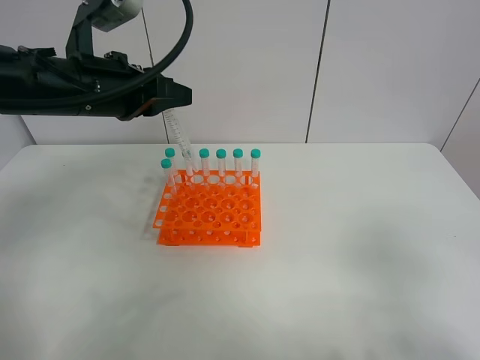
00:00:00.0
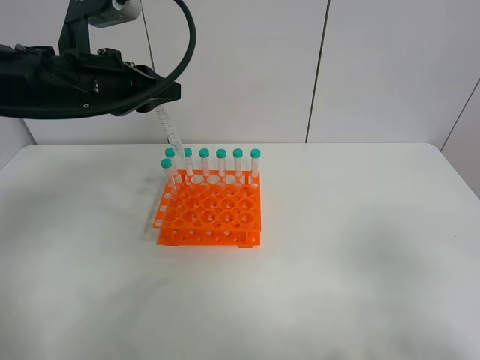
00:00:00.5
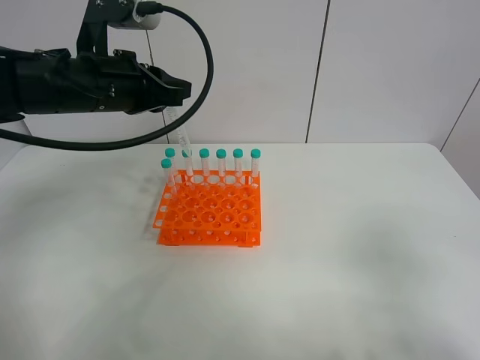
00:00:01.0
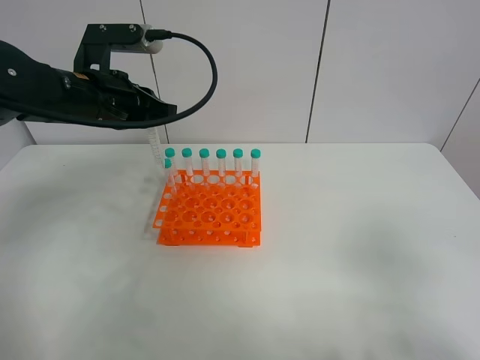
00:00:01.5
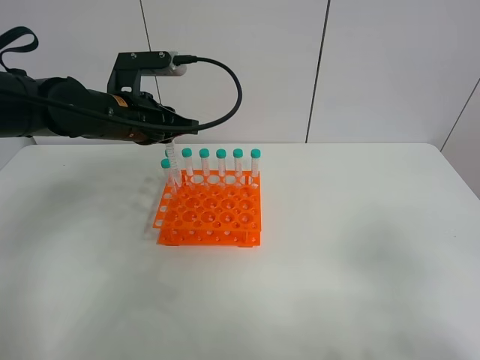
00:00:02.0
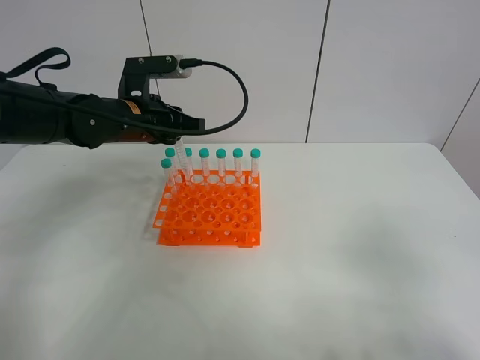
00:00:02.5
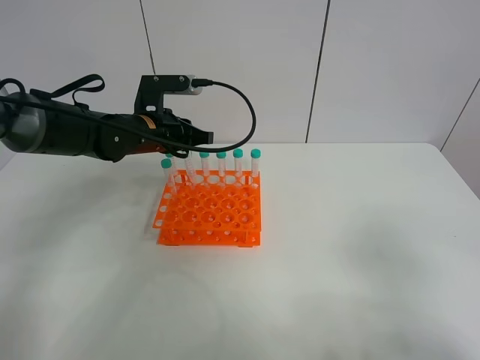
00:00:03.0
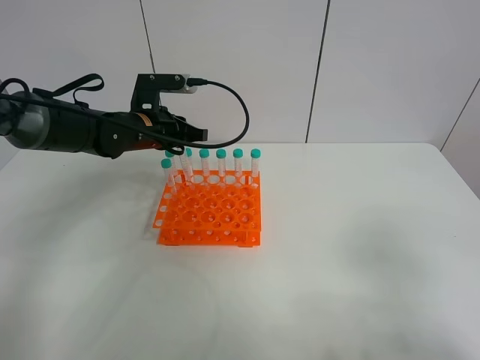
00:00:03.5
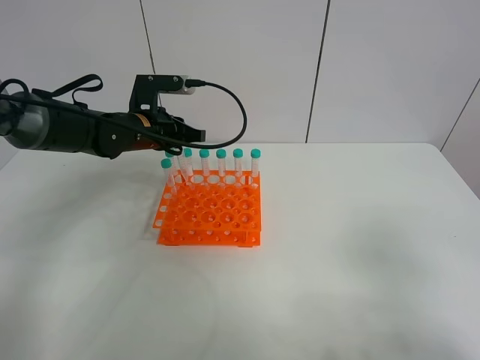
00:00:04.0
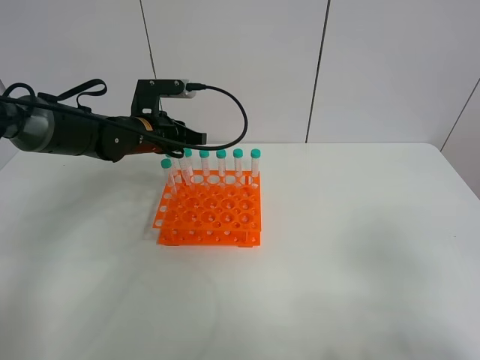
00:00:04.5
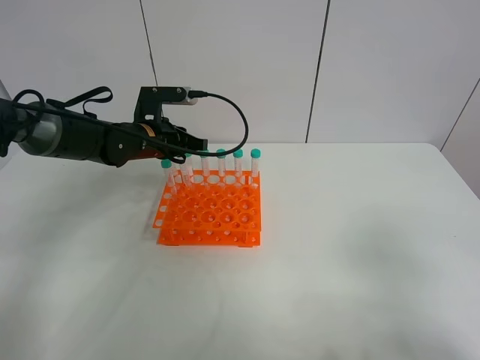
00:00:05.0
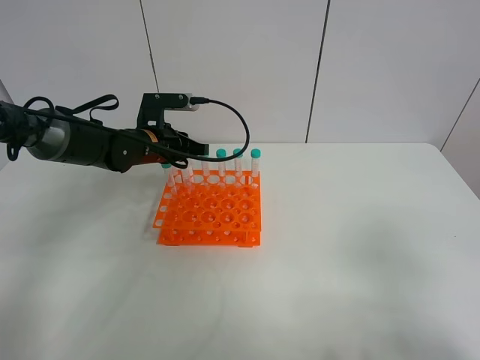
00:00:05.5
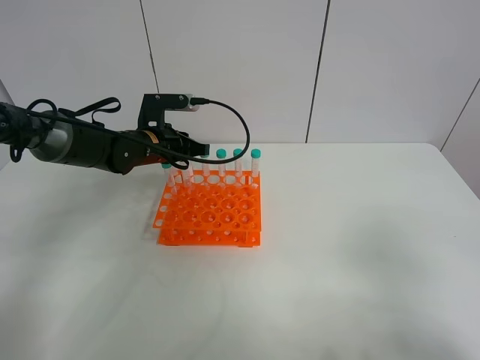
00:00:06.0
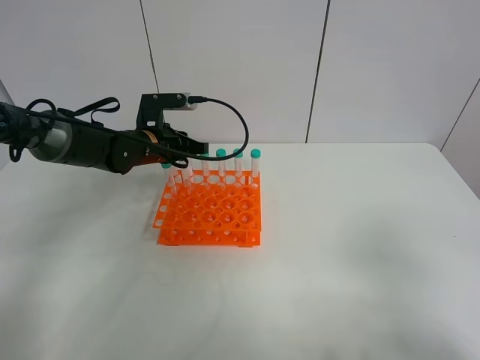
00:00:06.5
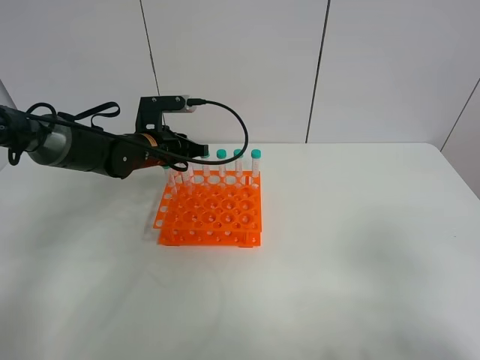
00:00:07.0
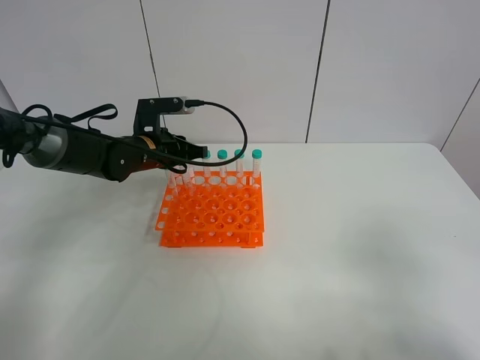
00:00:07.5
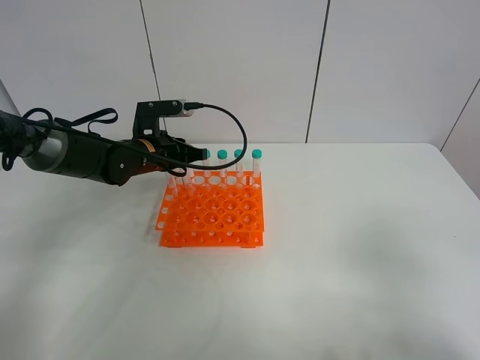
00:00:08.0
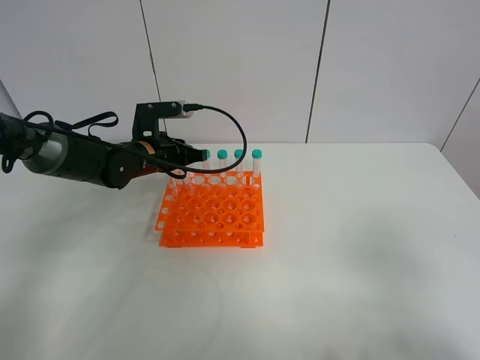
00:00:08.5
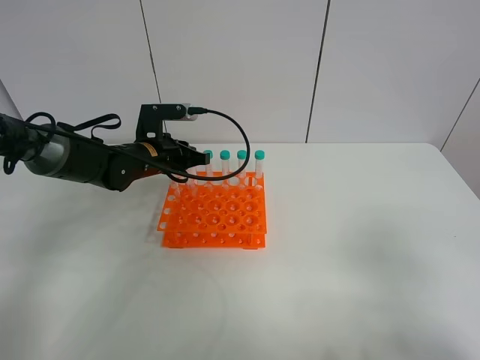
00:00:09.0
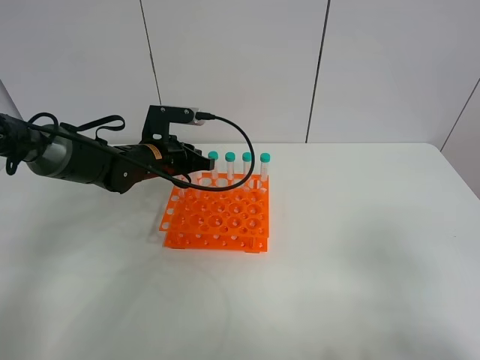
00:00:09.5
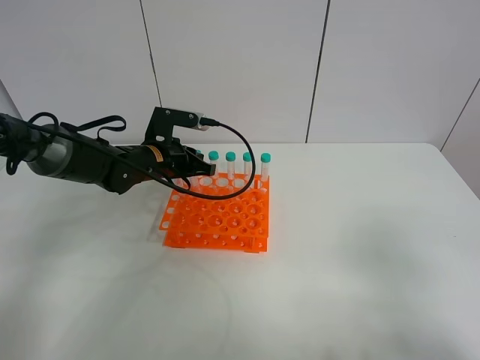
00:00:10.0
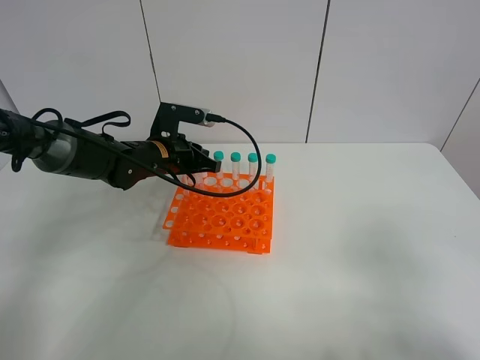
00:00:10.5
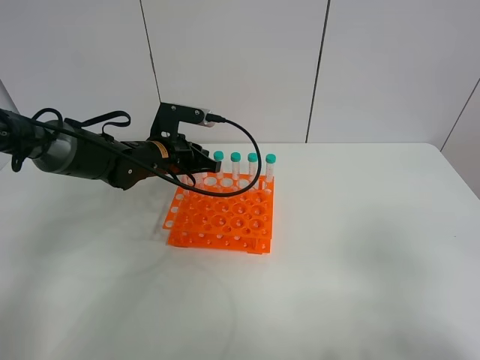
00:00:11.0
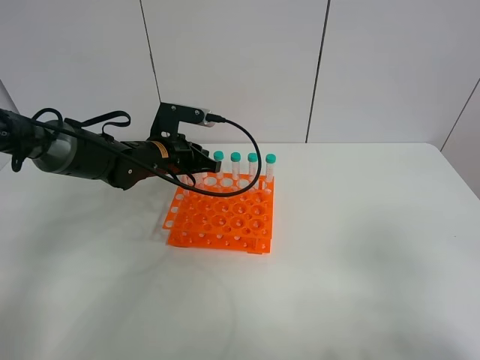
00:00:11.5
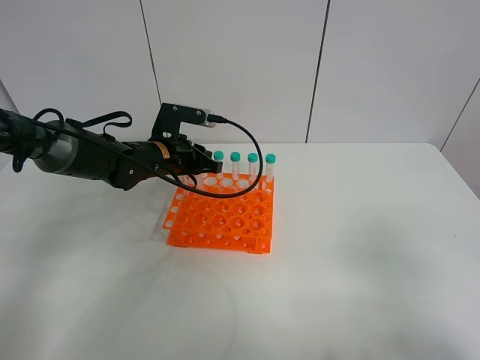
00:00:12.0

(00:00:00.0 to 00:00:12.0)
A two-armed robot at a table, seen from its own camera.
Task of the whole recording: Put the test tube on the table back onto the test tube rack.
00:00:00.0 - 00:00:02.0: The left gripper travels downward by about 5 cm.
00:00:02.0 - 00:00:04.0: The left gripper is displaced downward and forward by approximately 10 cm.
00:00:04.0 - 00:00:10.0: The grippers make only small movements.
00:00:10.0 - 00:00:12.0: Neither gripper changes place.

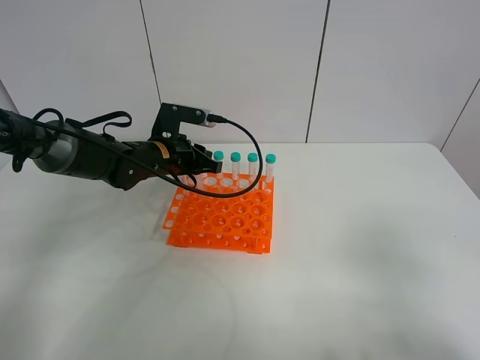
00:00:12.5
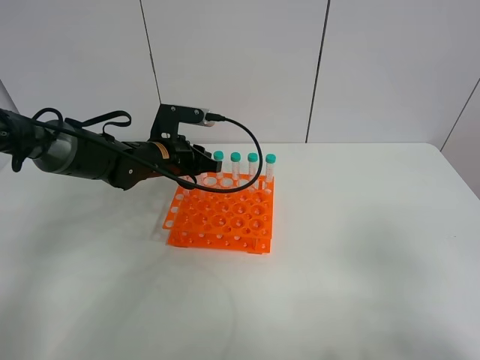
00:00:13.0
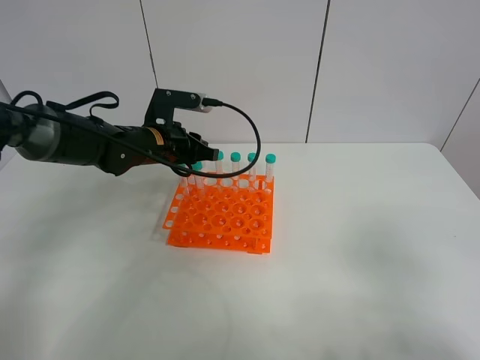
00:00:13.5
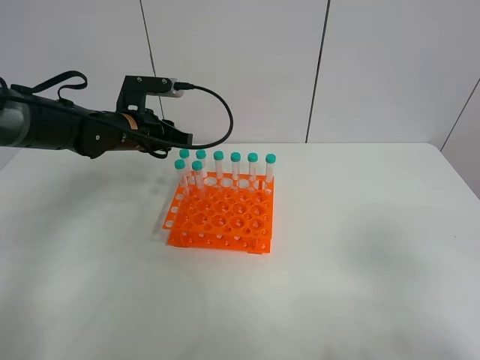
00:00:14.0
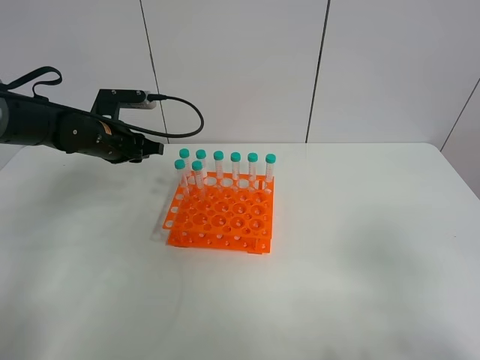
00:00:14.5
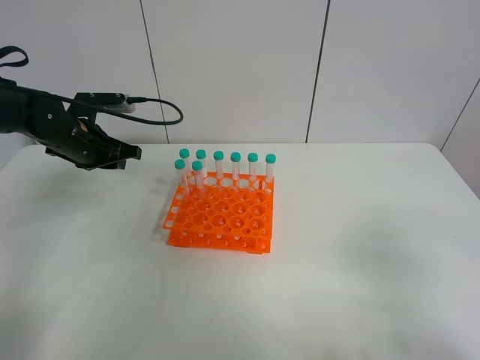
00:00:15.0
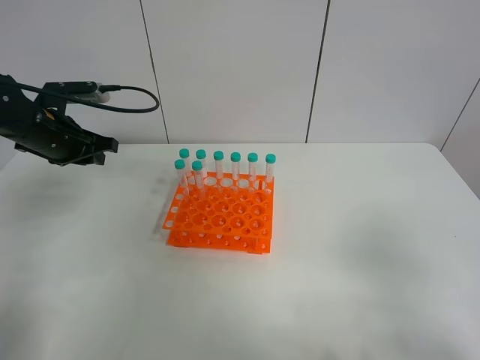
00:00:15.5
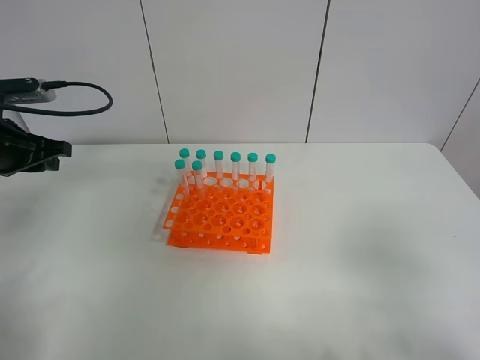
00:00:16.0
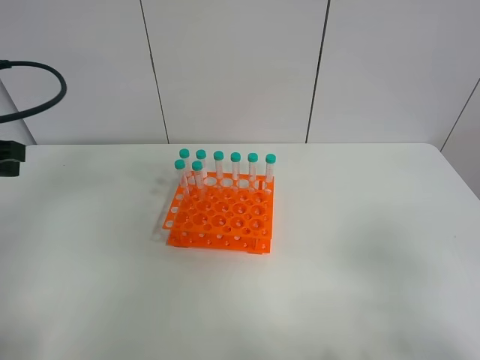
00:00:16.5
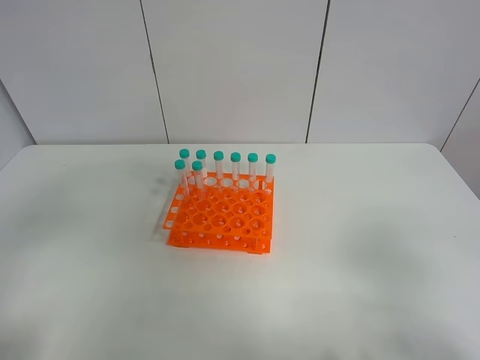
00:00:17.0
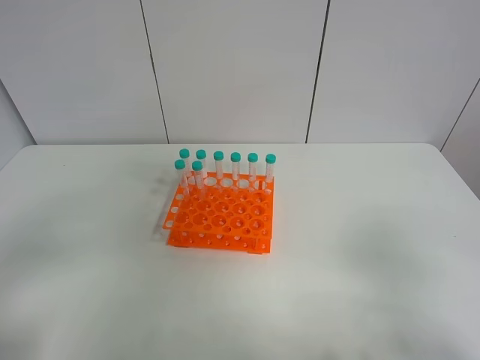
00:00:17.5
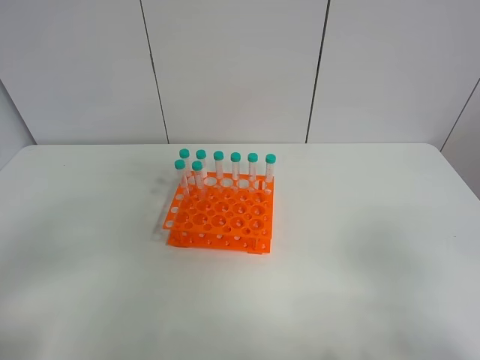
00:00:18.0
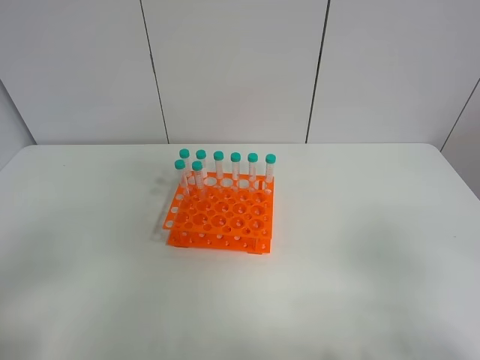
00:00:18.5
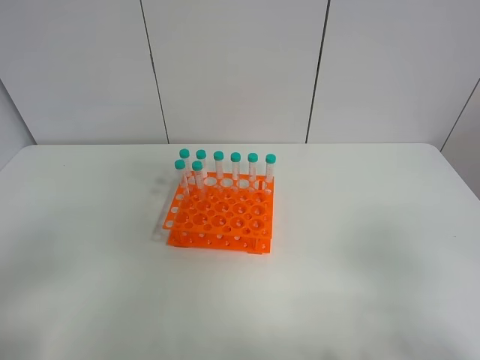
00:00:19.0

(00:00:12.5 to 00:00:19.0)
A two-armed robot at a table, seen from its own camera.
Task of the whole recording: Put the test tube on the table back onto the test tube rack.
00:00:12.5 - 00:00:14.5: The left gripper moves to the left, about 10 cm.
00:00:14.5 - 00:00:17.0: The left gripper travels backward and upward by some 35 cm.

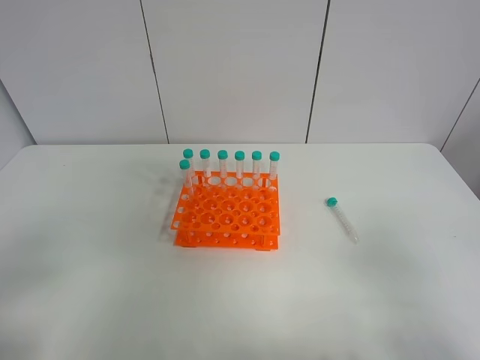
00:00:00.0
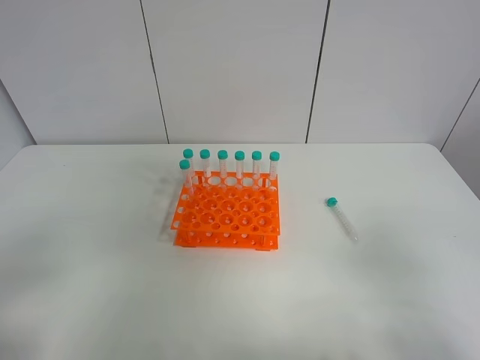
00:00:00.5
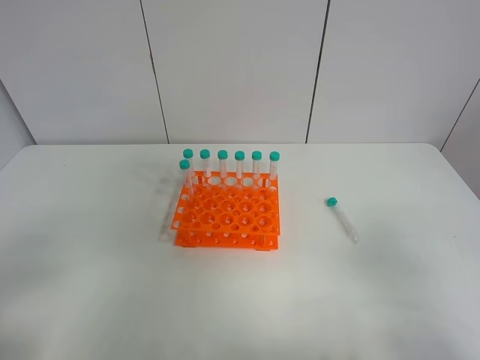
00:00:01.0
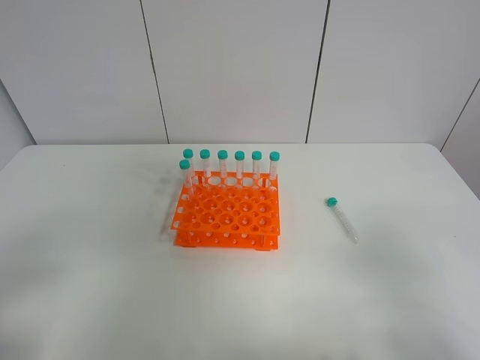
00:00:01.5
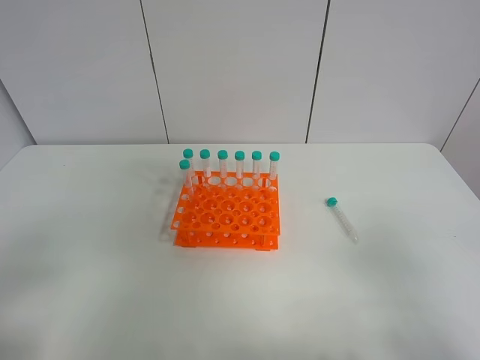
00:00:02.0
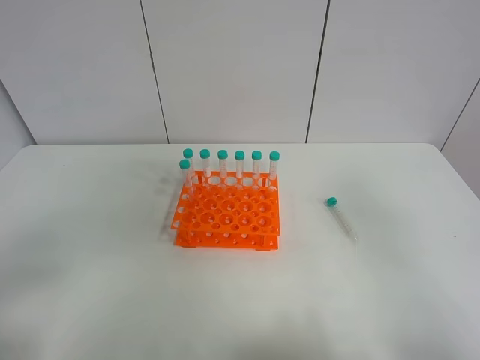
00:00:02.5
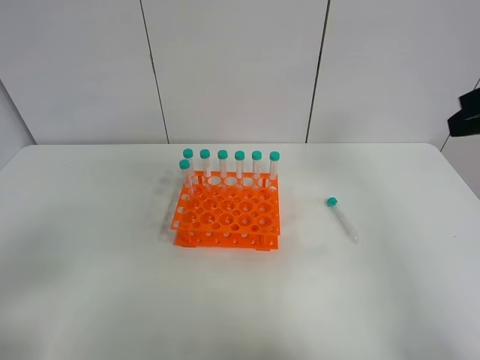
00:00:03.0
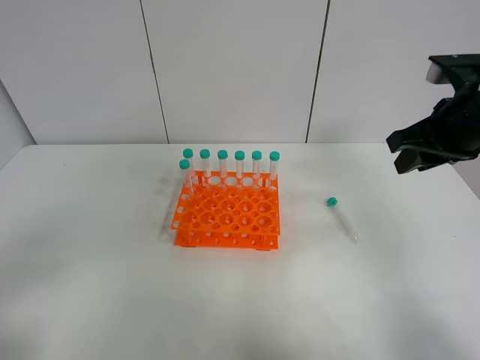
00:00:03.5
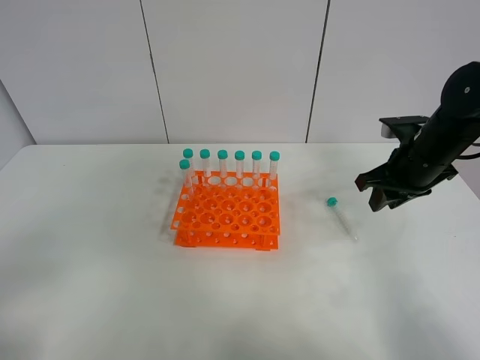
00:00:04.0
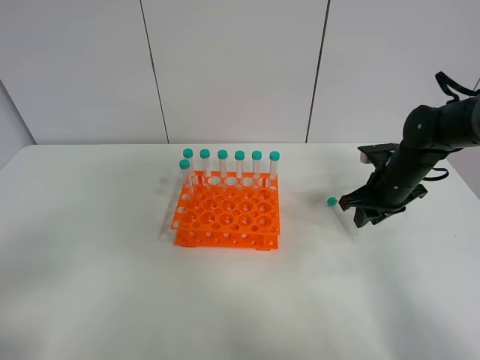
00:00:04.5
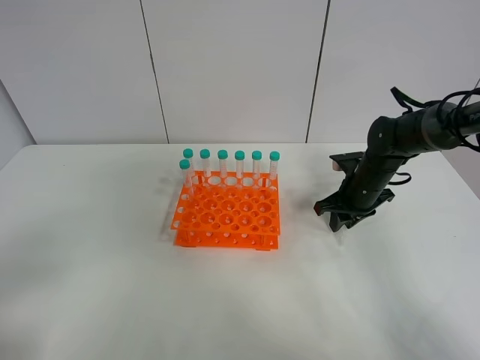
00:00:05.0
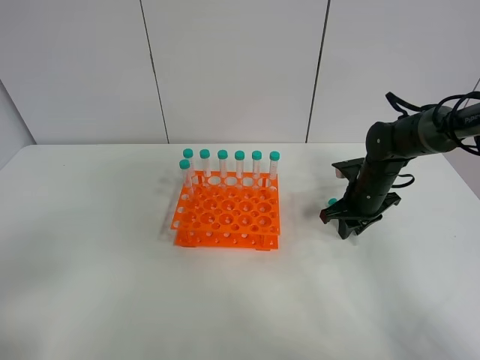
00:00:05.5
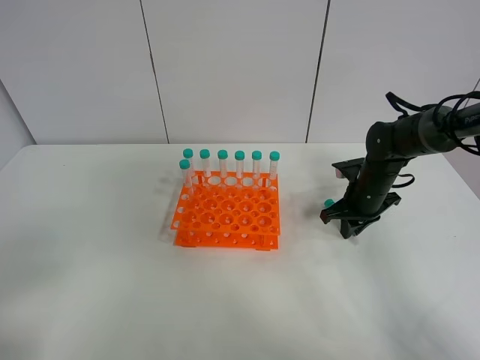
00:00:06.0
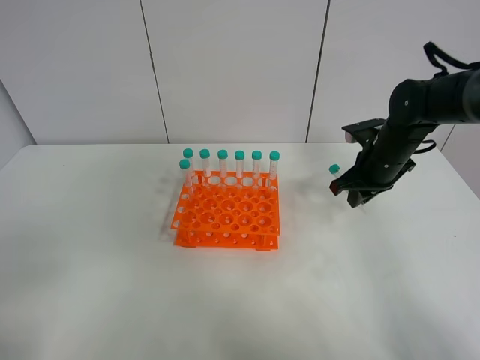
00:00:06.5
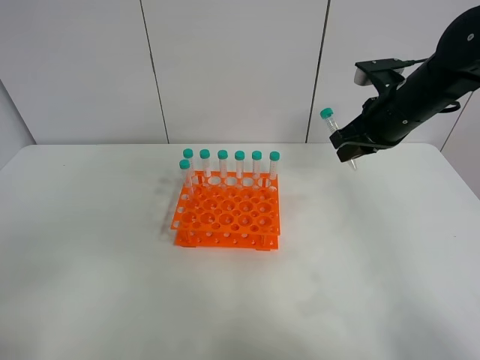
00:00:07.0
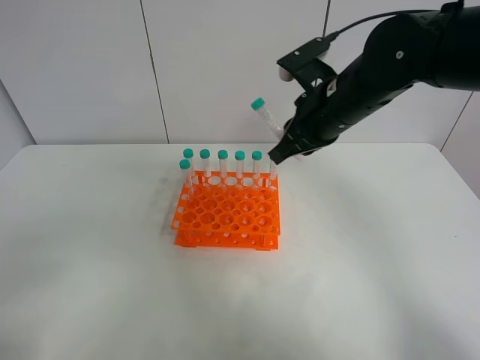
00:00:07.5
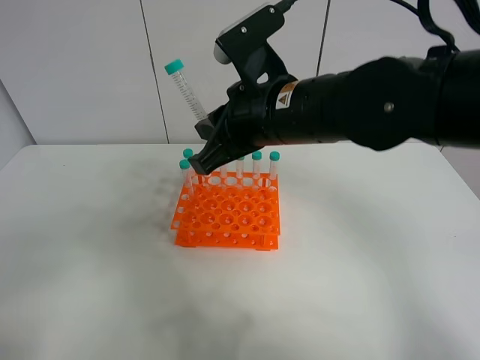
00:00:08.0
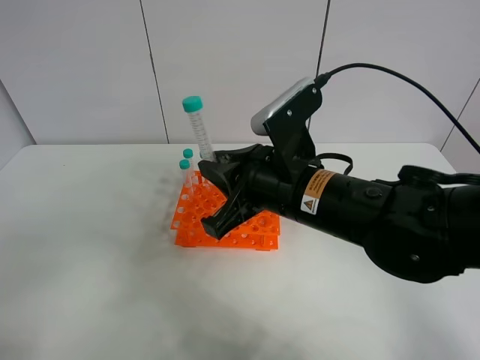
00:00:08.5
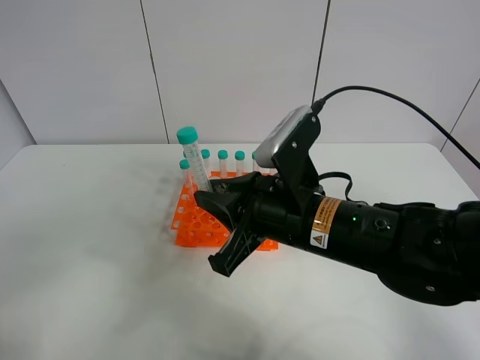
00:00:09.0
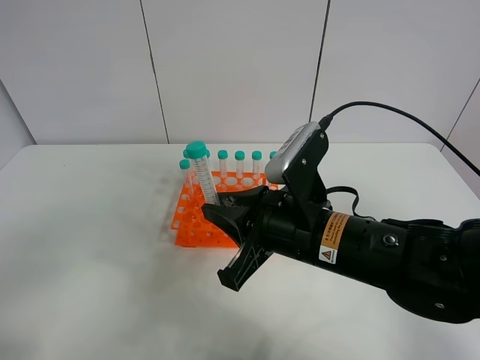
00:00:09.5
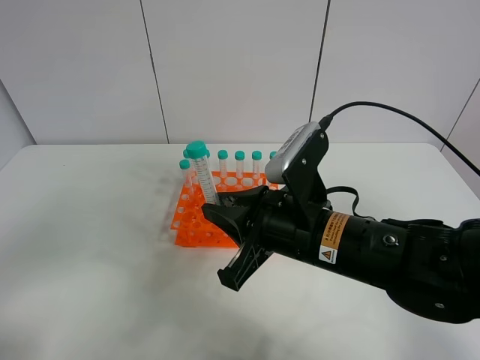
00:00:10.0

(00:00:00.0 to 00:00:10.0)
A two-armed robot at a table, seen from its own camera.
Task of the whole recording: Put the test tube on the table back onto the test tube rack.
Step, 00:00:00.0 - 00:00:05.5: Pick up the test tube with the right gripper.
00:00:00.0 - 00:00:02.0: Both grippers stay put.
00:00:02.0 - 00:00:04.0: The right gripper is displaced forward by approximately 35 cm.
00:00:04.0 - 00:00:06.0: The right gripper is displaced downward and forward by approximately 10 cm, and closes up.
00:00:06.0 - 00:00:08.0: The right gripper shifts some 30 cm upward, to the left and backward.
00:00:08.0 - 00:00:10.0: The right gripper heads downward and backward, covering some 10 cm.
